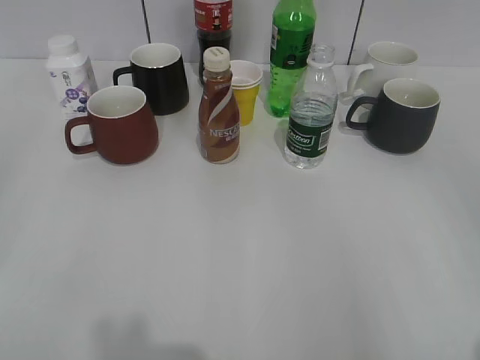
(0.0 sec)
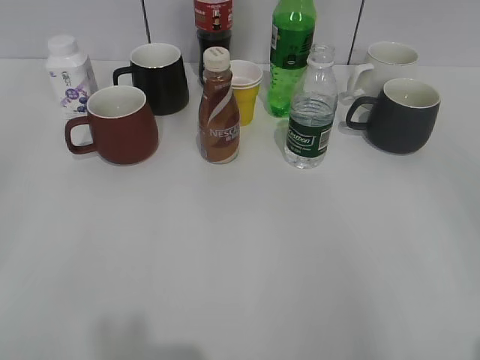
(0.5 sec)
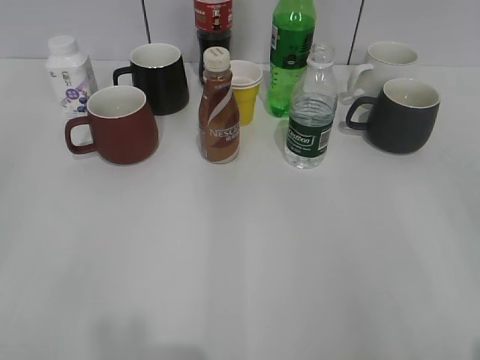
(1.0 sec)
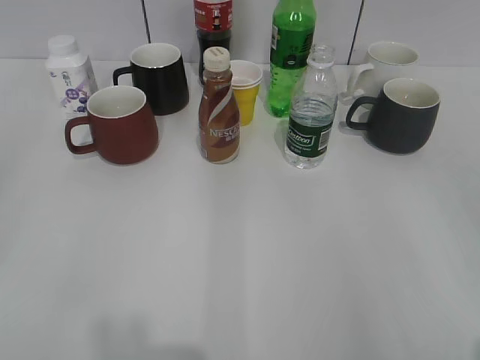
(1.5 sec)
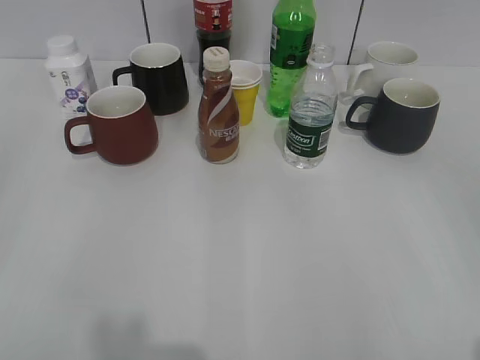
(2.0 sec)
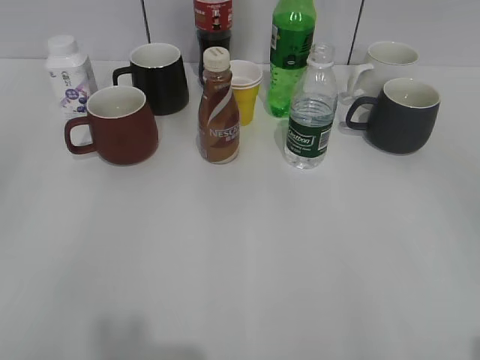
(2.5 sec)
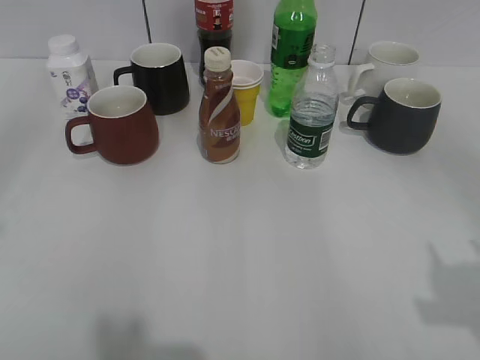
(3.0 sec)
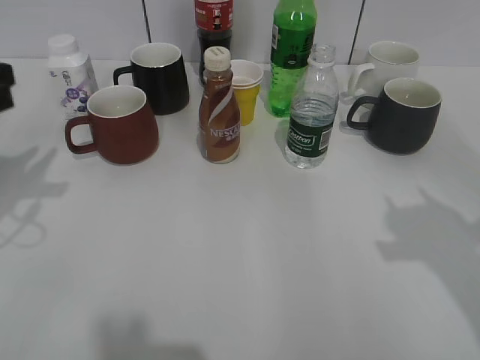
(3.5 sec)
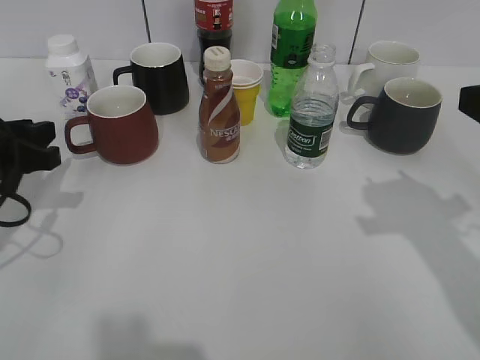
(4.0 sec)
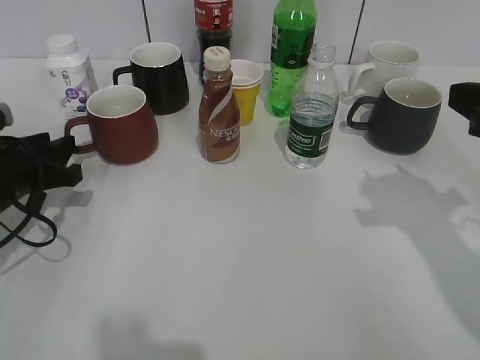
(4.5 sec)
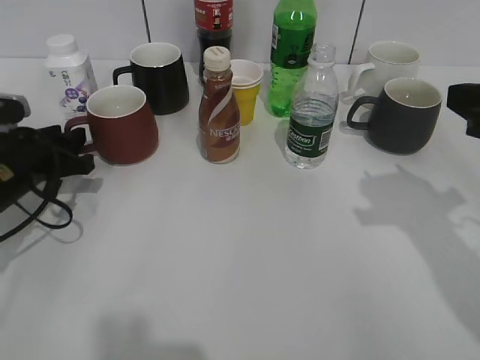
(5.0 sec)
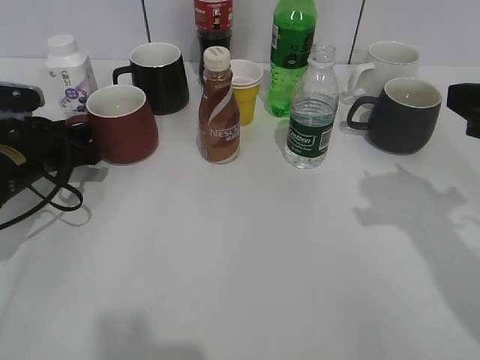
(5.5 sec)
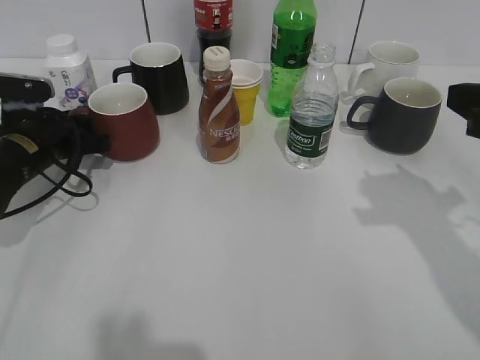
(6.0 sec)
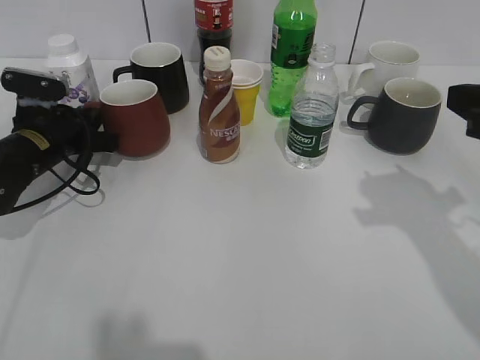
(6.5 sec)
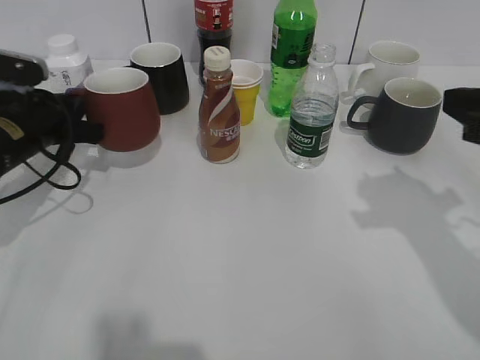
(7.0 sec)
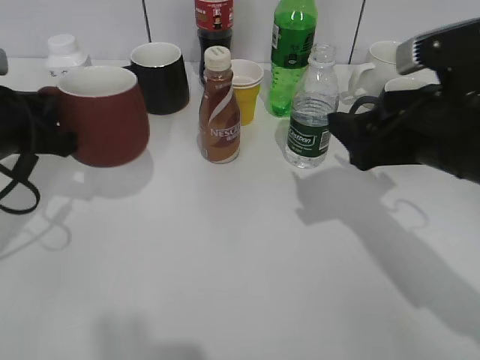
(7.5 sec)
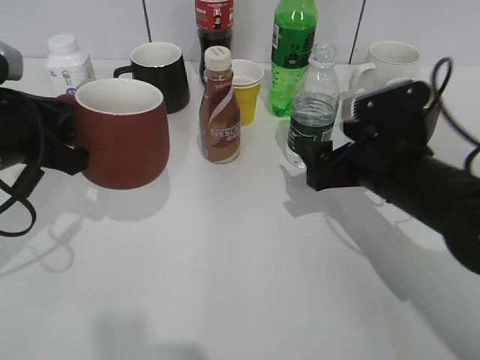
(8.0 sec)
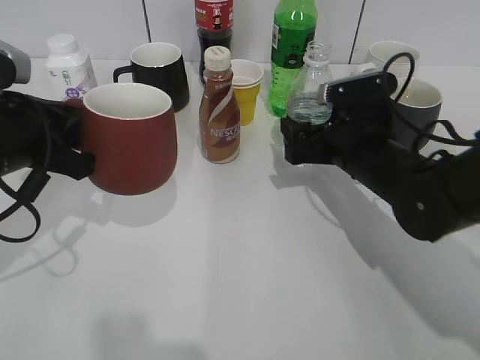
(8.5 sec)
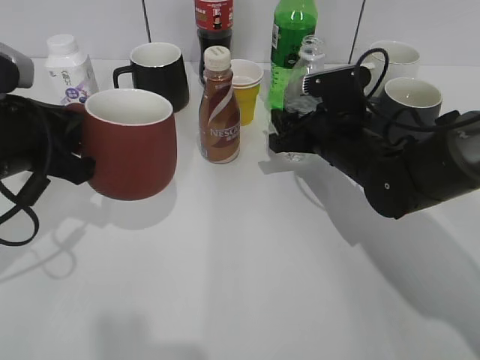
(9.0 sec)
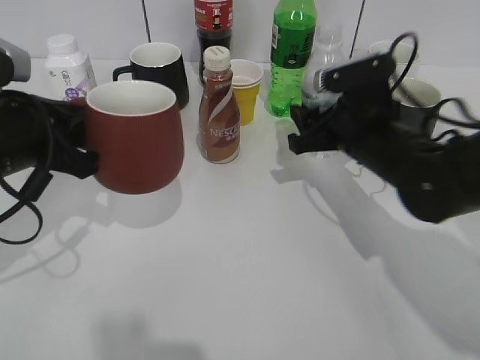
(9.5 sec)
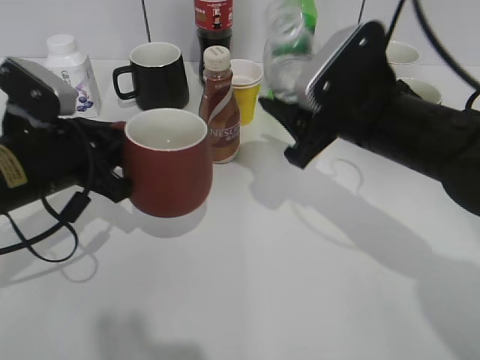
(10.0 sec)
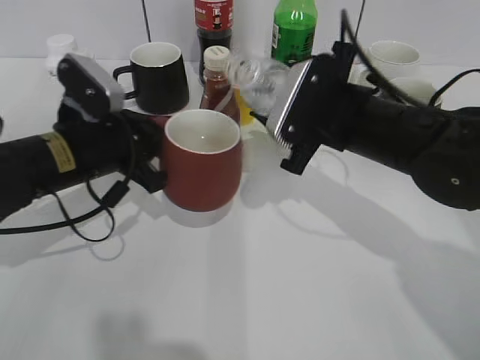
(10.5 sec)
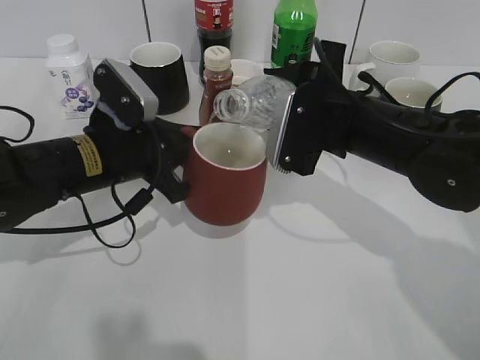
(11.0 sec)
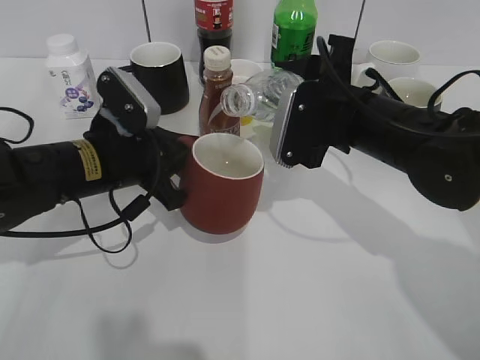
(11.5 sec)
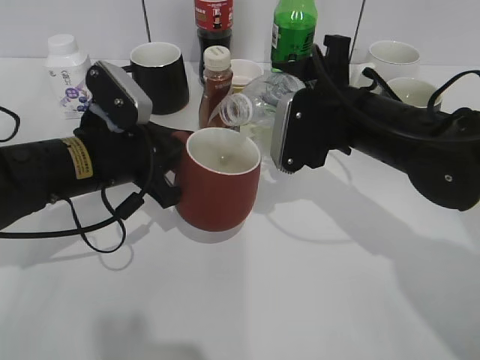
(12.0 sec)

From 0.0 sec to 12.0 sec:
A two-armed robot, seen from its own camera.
Step, from 2.5 sec to 6.0 sec: Grasp the red cup with left gripper.
Step, from 7.0 sec to 8.5 sec: Grasp the bottle with water with right gripper.
From 2.0 sec to 4.0 sec: The two grippers go roughly 20 cm forward. The right gripper closes.
From 4.0 sec to 6.0 sec: The left gripper heads forward and downward, covering about 10 cm.
From 6.0 sec to 8.0 sec: The right gripper is displaced downward, to the left and forward by about 15 cm, and opens its fingers. Meanwhile the left gripper is displaced backward and upward by roughly 15 cm, and closes.
From 8.0 sec to 10.0 sec: The right gripper is displaced upward by about 5 cm, and closes.
From 10.0 sec to 12.0 sec: The left gripper shifts approximately 5 cm to the right.

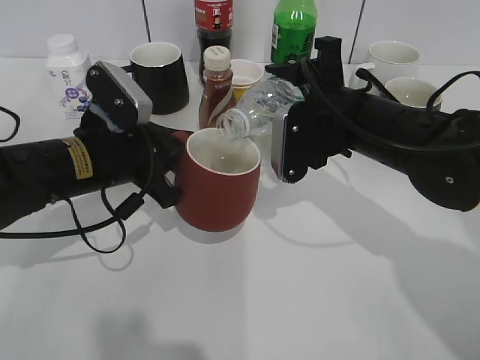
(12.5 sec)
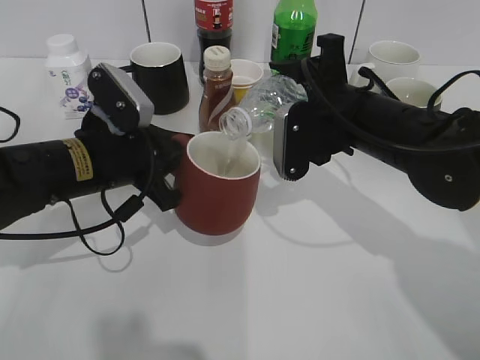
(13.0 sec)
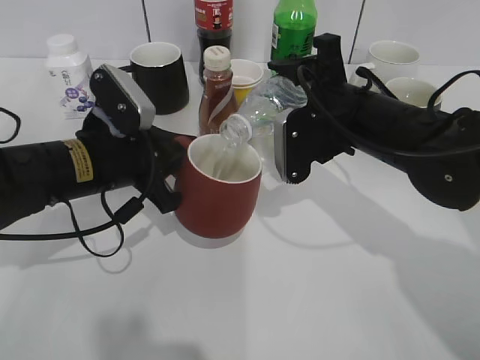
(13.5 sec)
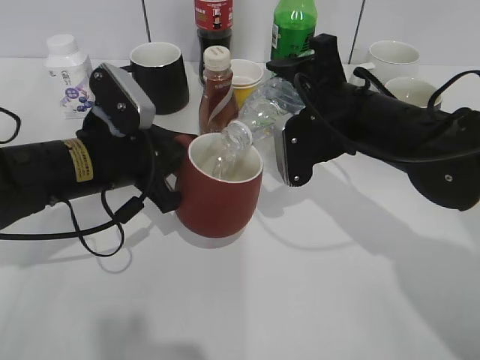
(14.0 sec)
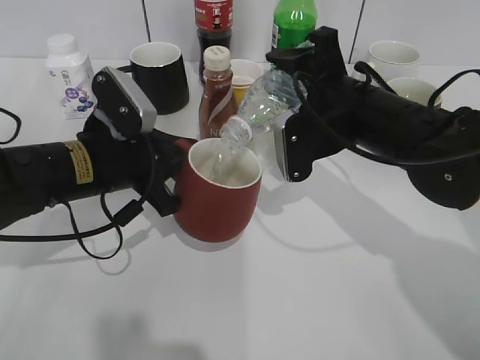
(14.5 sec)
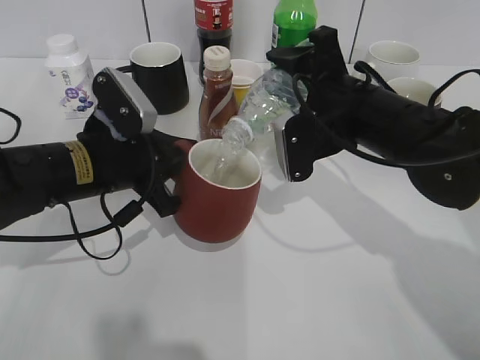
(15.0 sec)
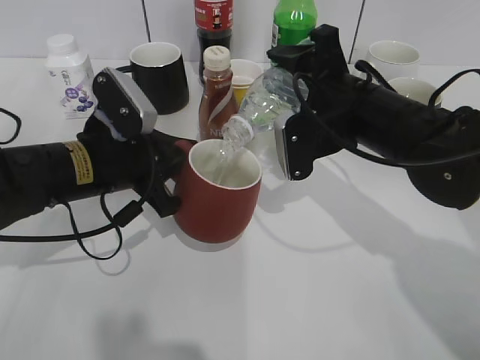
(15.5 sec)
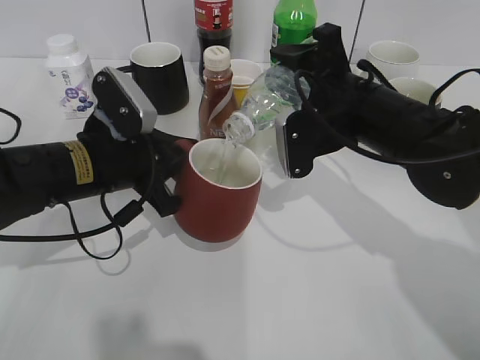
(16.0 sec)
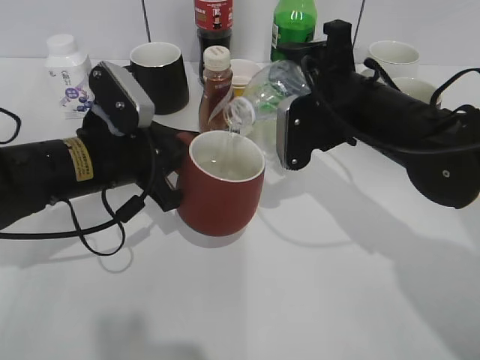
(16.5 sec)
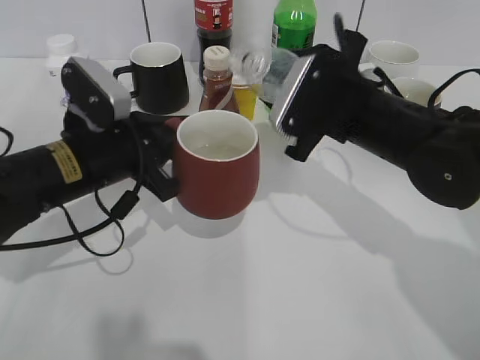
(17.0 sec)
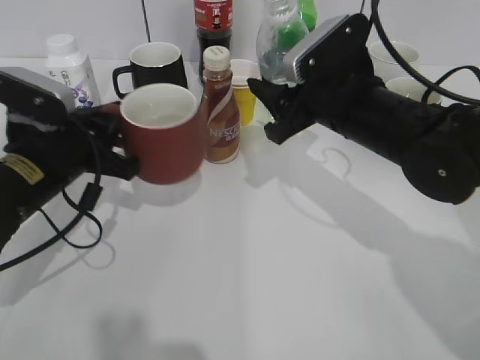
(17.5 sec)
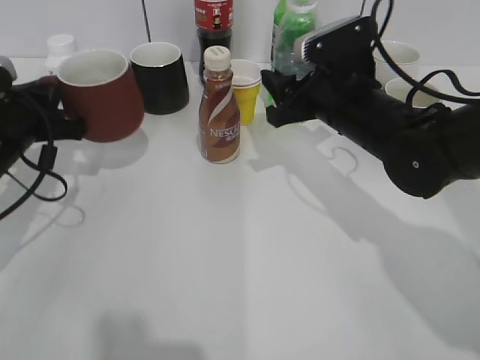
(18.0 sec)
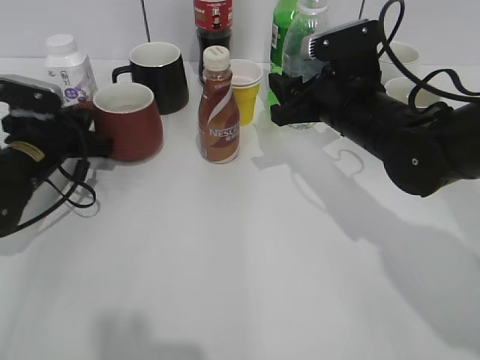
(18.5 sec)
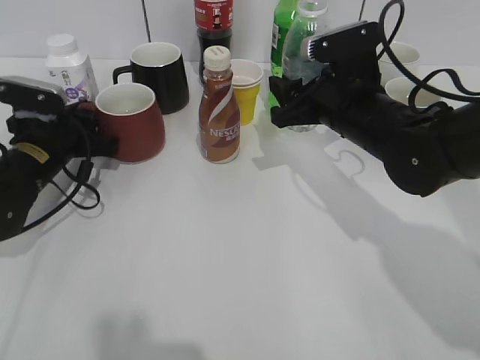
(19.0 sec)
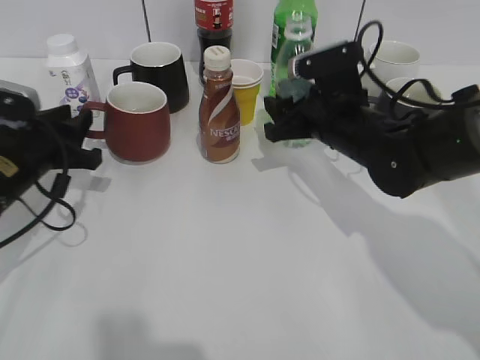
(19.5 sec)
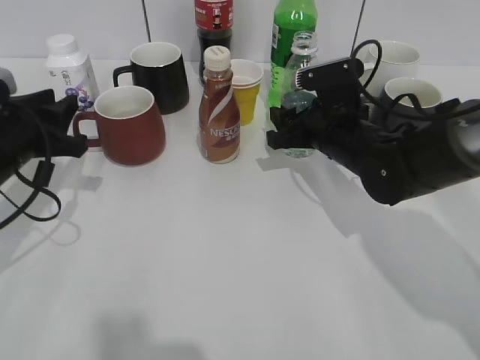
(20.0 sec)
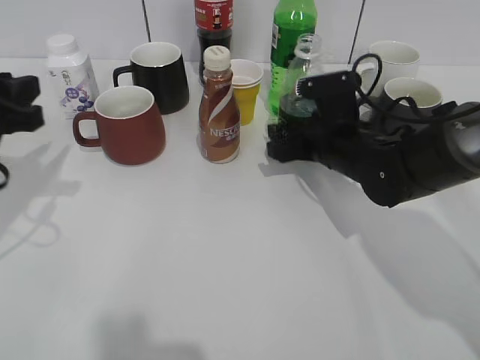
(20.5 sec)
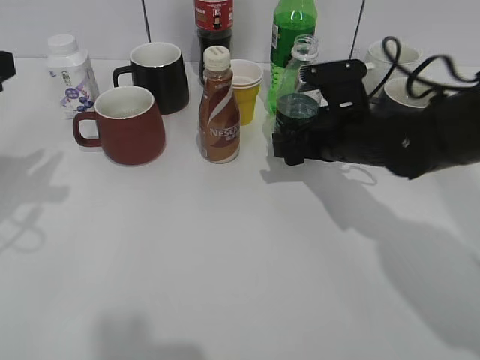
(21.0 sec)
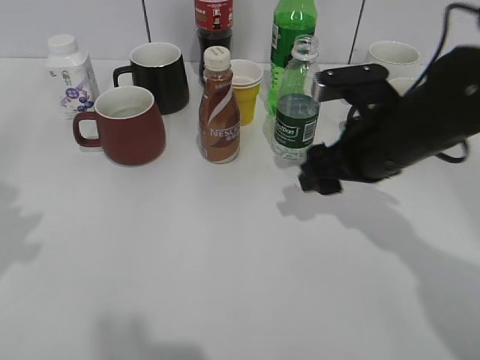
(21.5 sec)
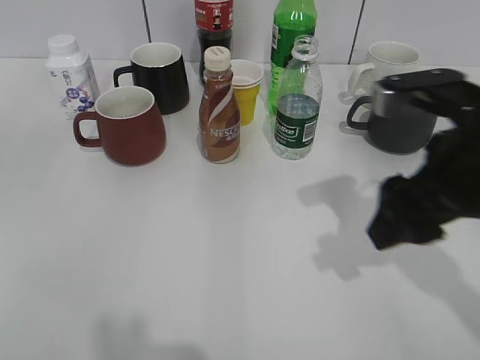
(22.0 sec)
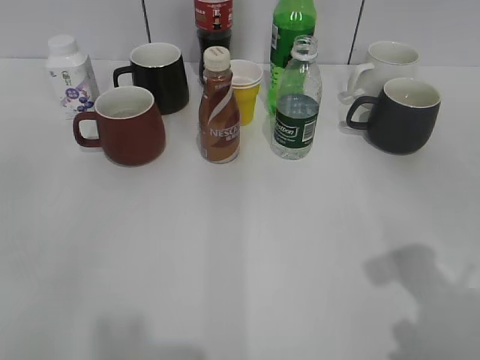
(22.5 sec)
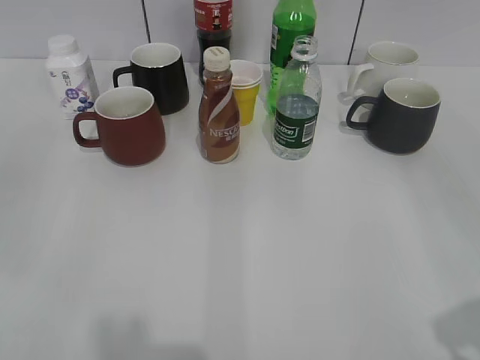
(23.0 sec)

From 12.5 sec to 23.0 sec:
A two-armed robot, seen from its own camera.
Step, from 12.5 sec to 16.5 sec: Pour the water from bottle to cup with right gripper.
Step, from 17.0 sec to 19.0 sec: Place the red cup on the table with left gripper.
Step, from 19.5 sec to 21.0 sec: Place the water bottle on the table with right gripper.
From 12.5 sec to 16.5 sec: The grippers stay close to where they were, moving slightly.
From 16.5 sec to 19.0 sec: The left gripper is displaced to the left, forward and downward by some 15 cm, and opens.
From 19.0 sec to 21.0 sec: The right gripper opens. The left gripper shifts about 20 cm upward and backward, and opens.
From 21.0 sec to 23.0 sec: The left gripper heads backward, covering approximately 15 cm; the right gripper shifts some 35 cm backward, to the right and upward.

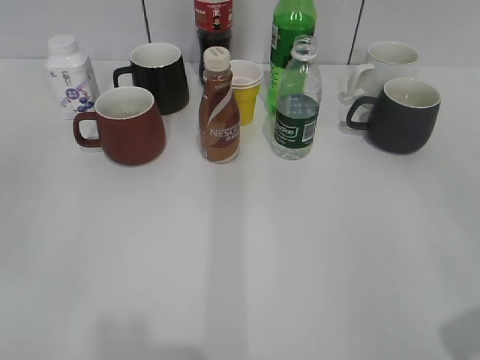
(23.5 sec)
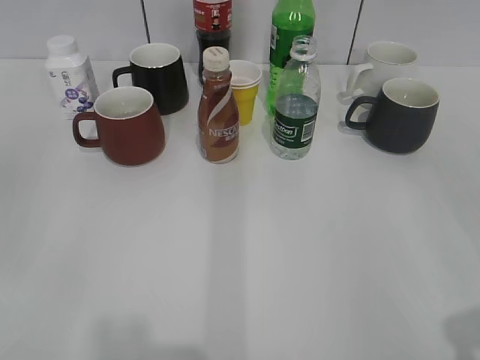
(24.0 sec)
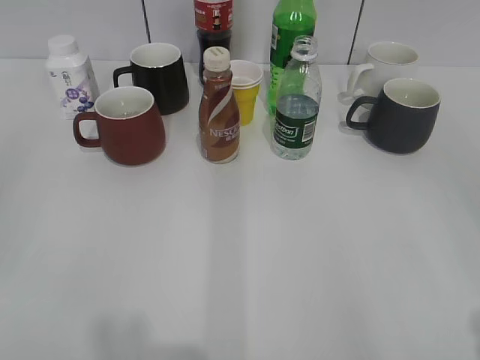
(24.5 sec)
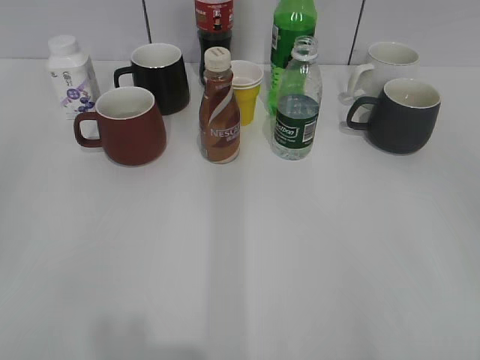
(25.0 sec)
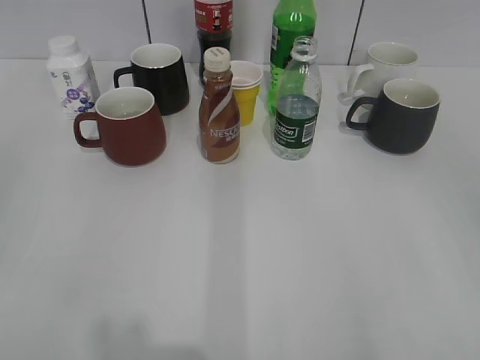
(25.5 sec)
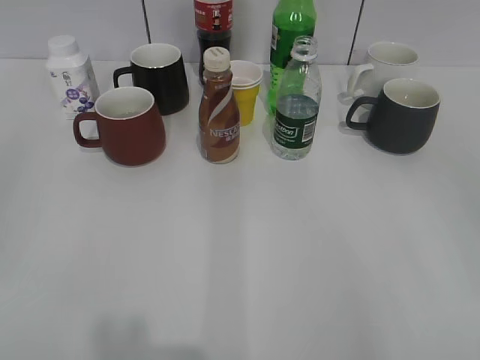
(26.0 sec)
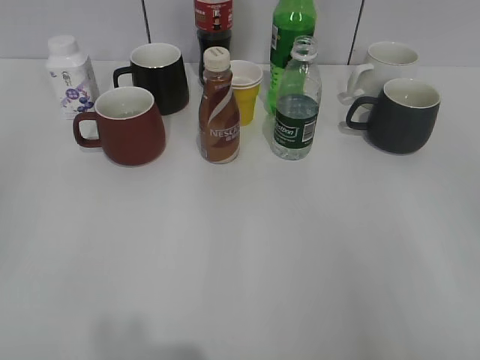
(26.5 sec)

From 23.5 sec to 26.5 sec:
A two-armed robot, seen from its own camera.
From 25.0 sec to 26.5 sec: The two grippers keep their place.
